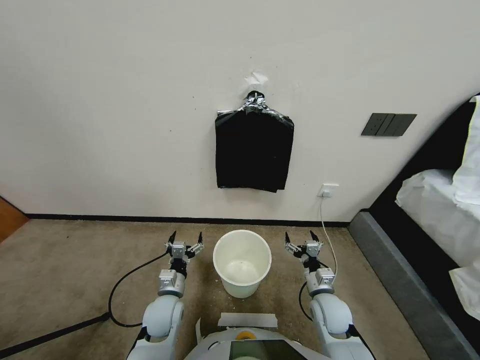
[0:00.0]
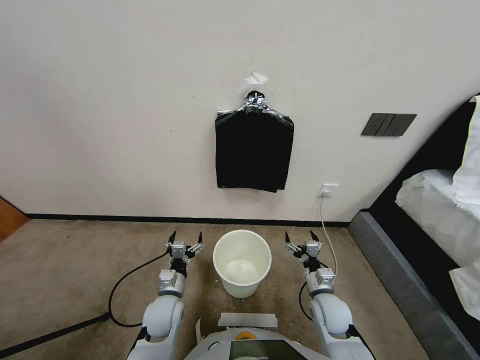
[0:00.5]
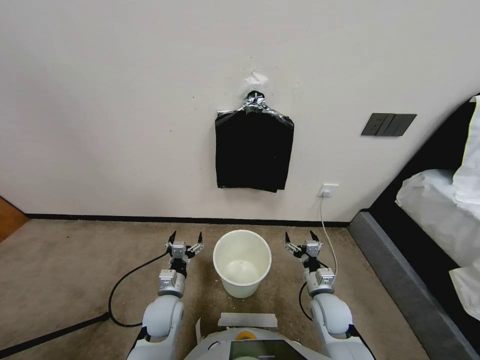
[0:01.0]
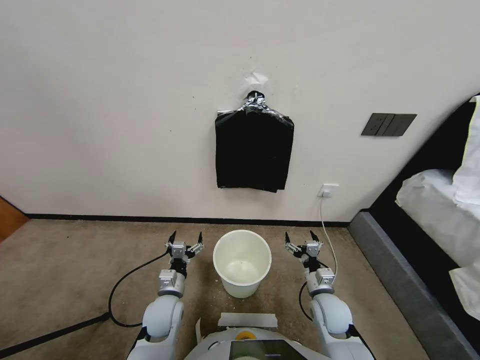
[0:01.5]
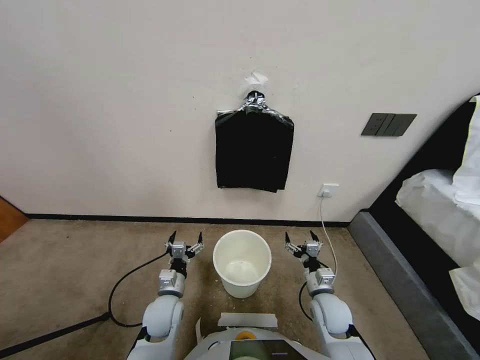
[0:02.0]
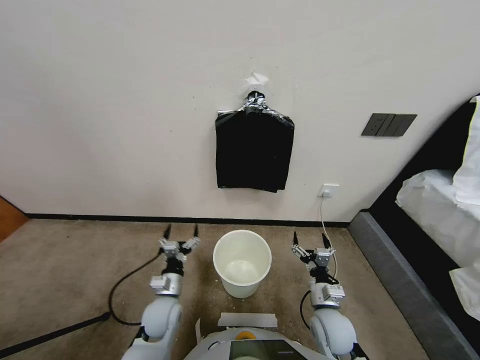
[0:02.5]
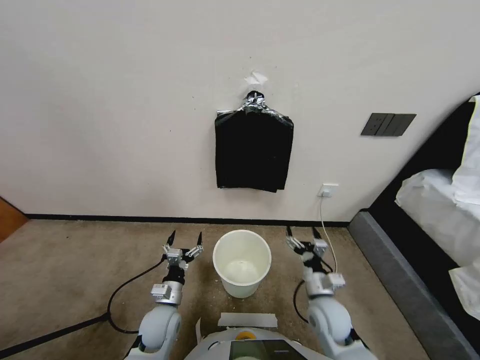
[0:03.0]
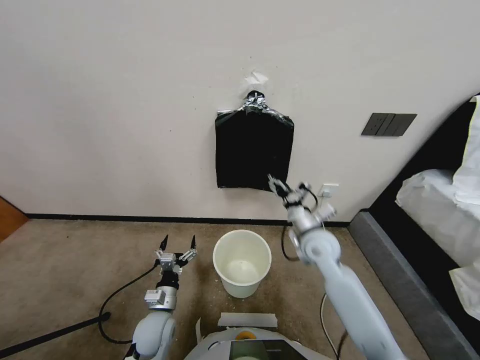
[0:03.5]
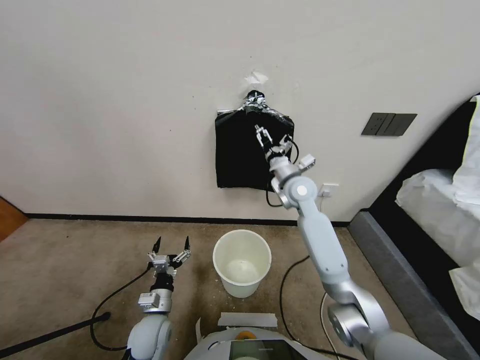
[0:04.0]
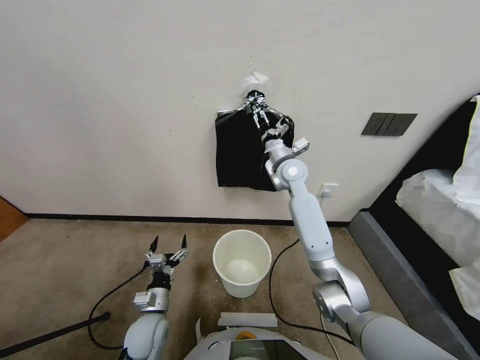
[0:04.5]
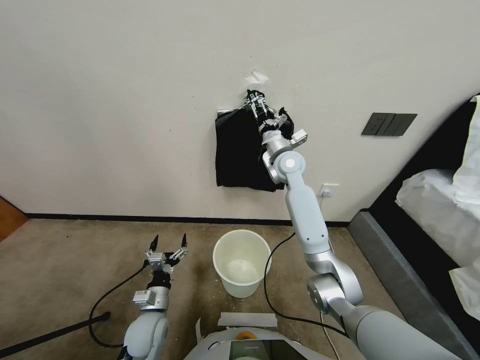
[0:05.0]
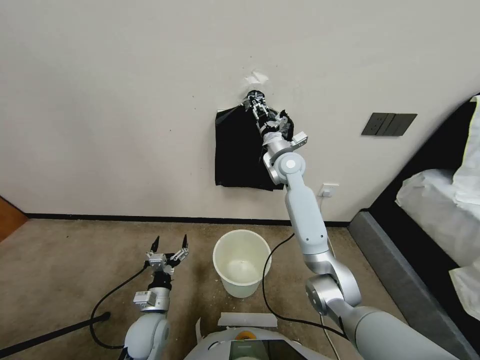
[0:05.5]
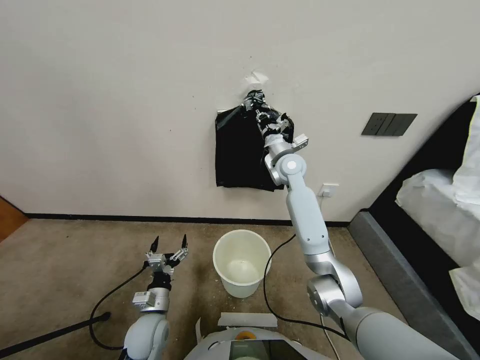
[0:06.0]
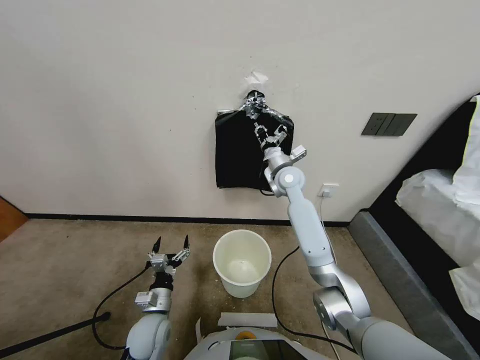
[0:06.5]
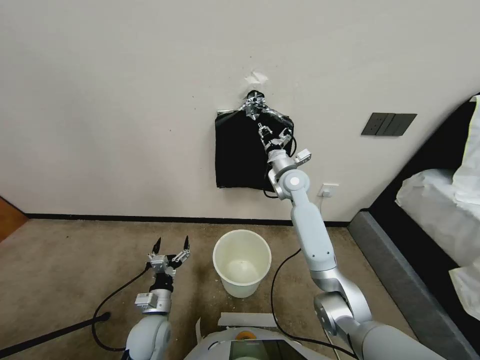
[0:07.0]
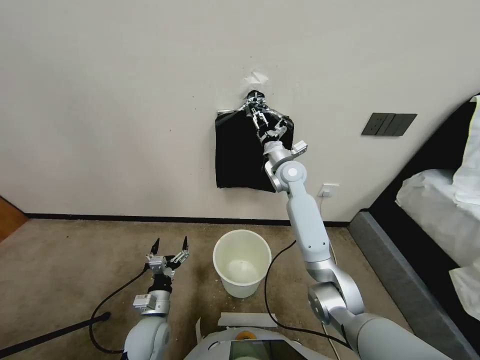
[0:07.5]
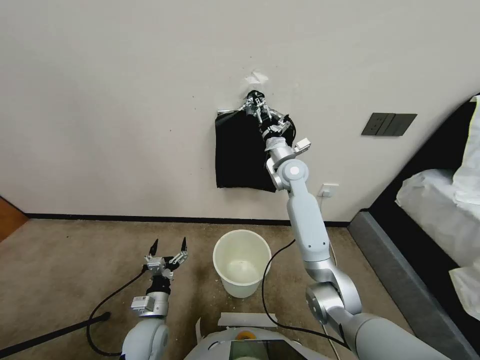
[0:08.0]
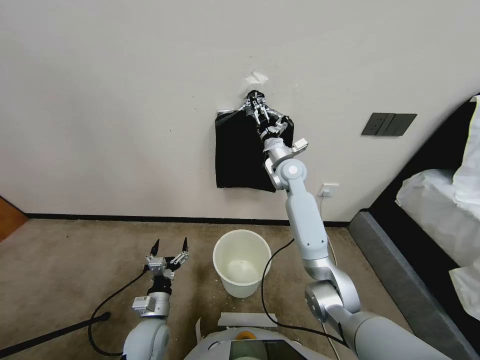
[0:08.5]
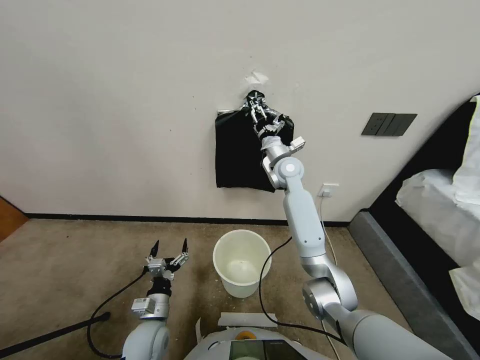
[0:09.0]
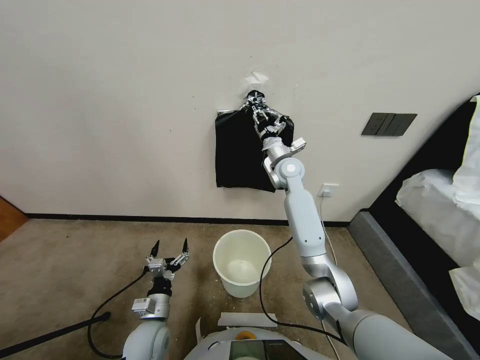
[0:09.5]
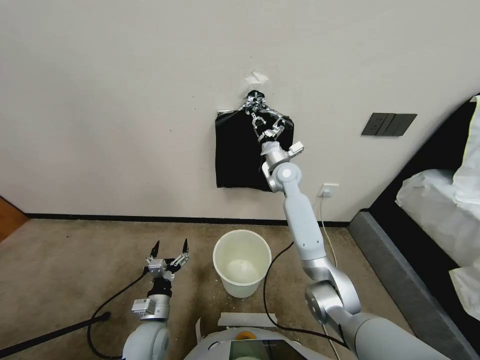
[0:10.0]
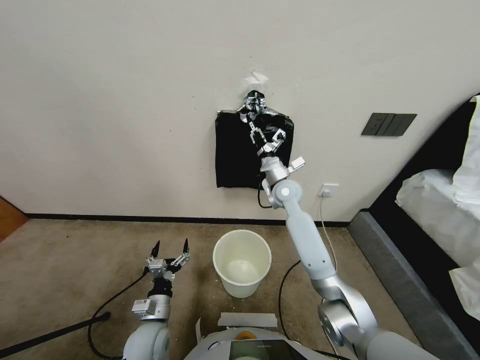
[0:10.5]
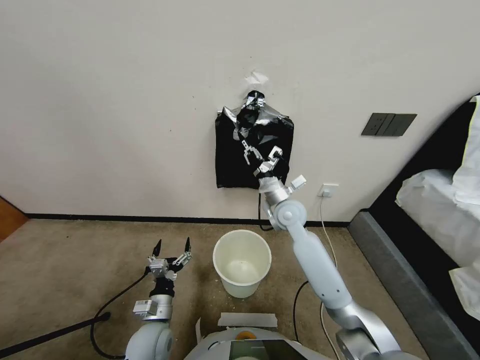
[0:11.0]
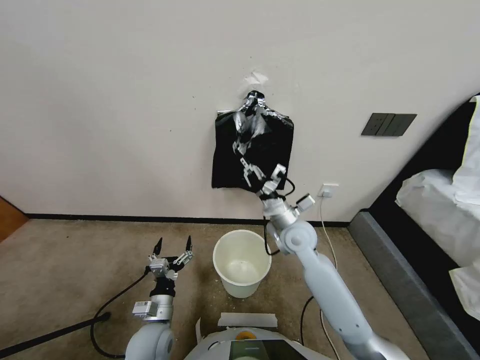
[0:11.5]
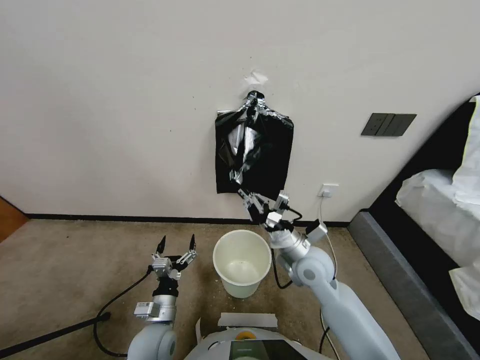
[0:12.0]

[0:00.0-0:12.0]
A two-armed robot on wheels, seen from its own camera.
Task of the whole recording: Place a trash bag onto the trash bin.
0:02.0 to 0:04.0: The left gripper shifts by about 5 cm. The right gripper moves forward and upward, approximately 35 cm.
0:04.0 to 0:06.0: The right gripper closes.
0:06.0 to 0:08.0: The right gripper opens up.
0:08.0 to 0:10.0: The right gripper closes up.
0:10.0 to 0:12.0: The right gripper travels backward by some 25 cm.

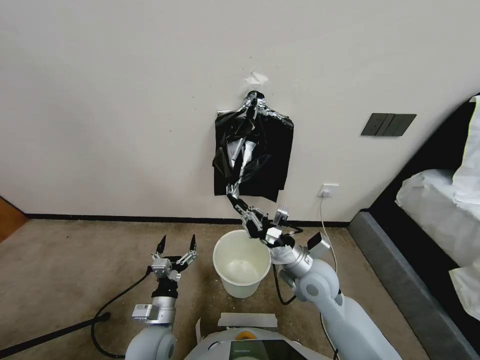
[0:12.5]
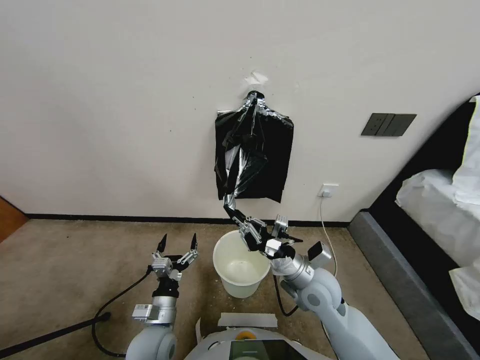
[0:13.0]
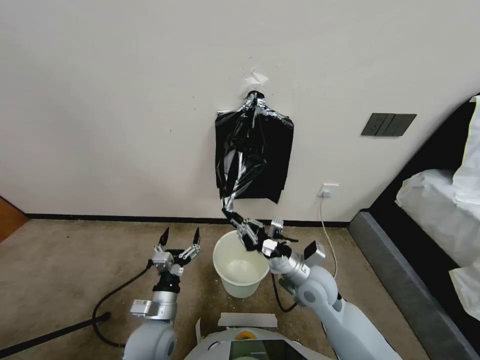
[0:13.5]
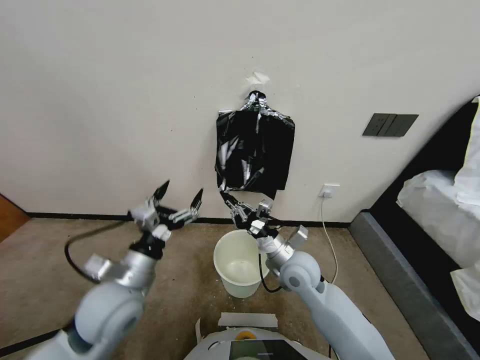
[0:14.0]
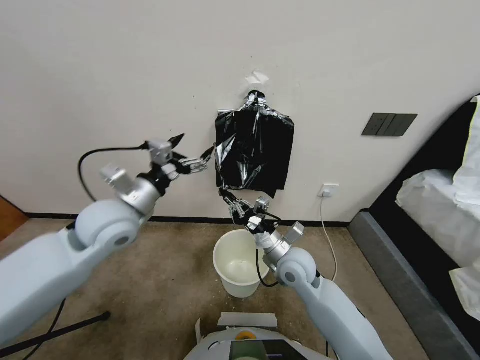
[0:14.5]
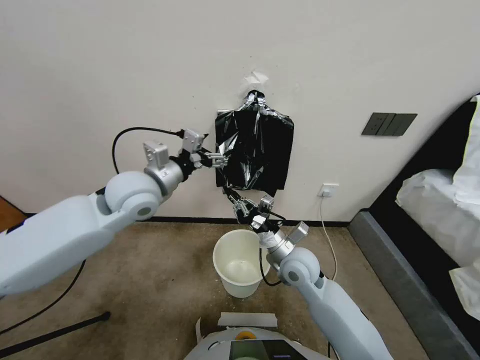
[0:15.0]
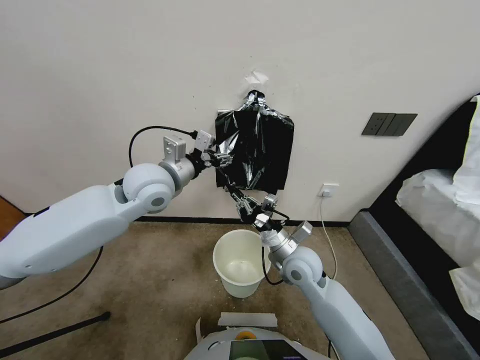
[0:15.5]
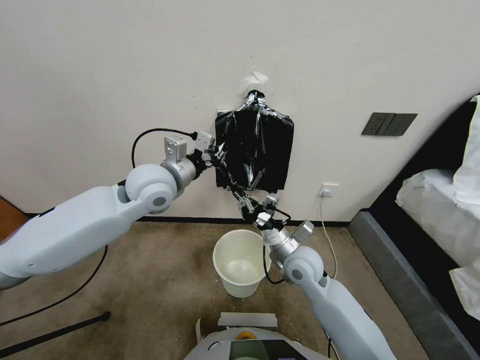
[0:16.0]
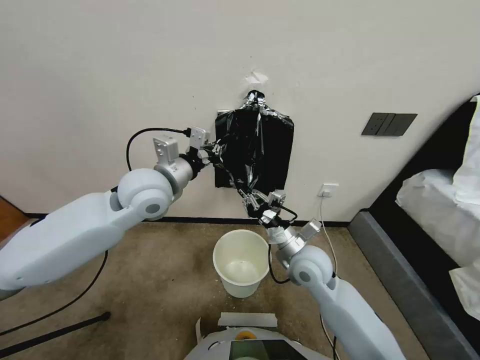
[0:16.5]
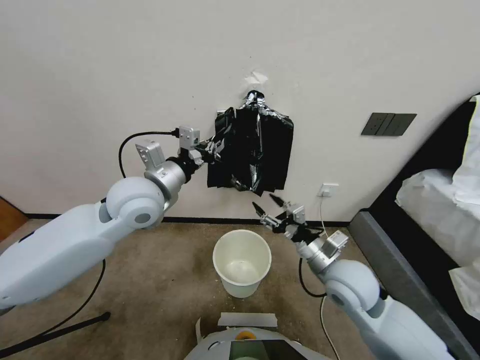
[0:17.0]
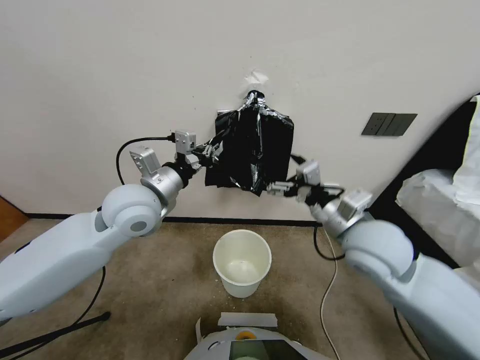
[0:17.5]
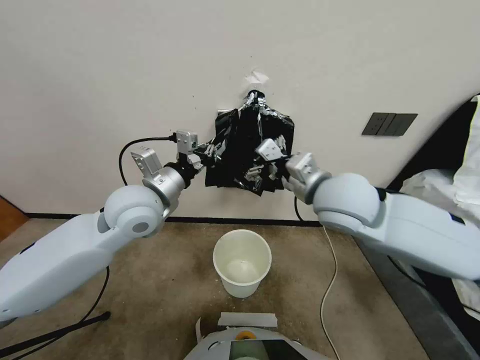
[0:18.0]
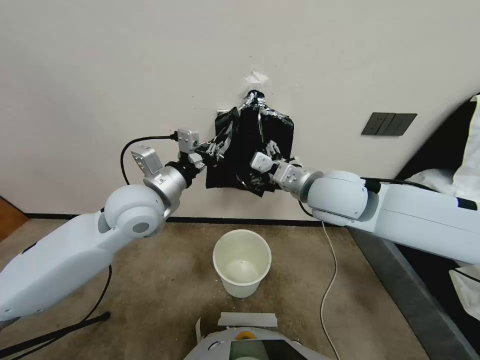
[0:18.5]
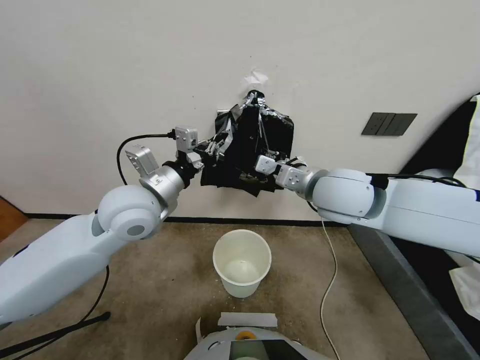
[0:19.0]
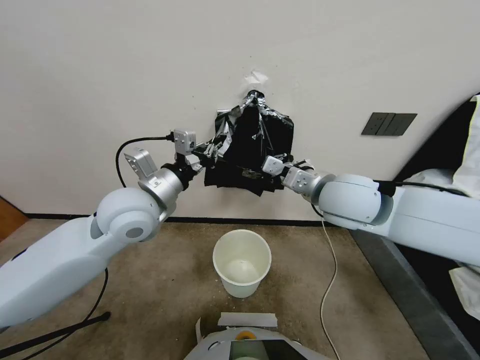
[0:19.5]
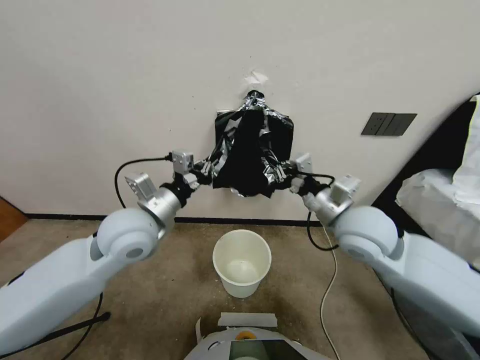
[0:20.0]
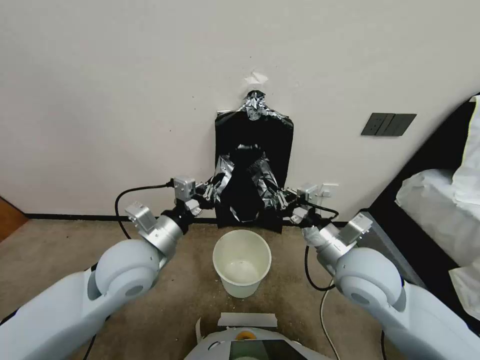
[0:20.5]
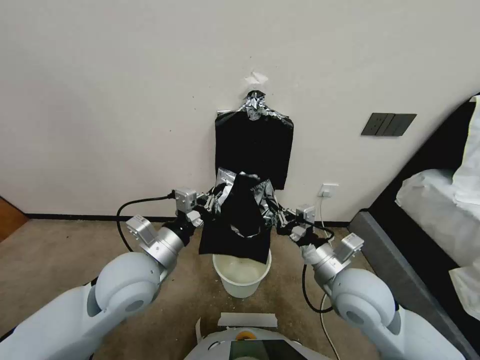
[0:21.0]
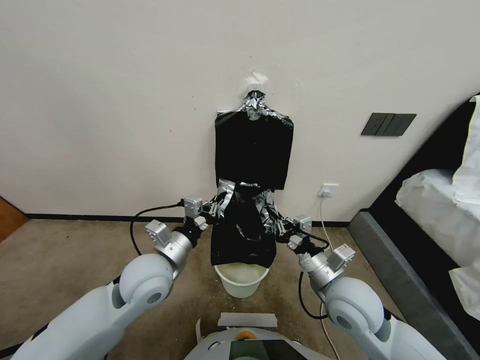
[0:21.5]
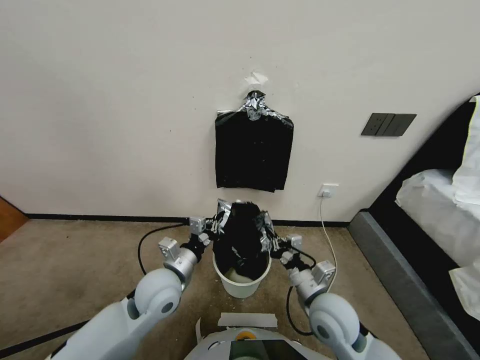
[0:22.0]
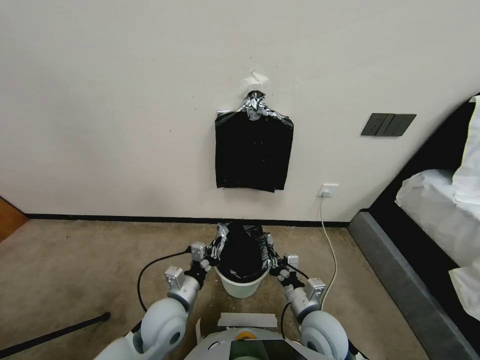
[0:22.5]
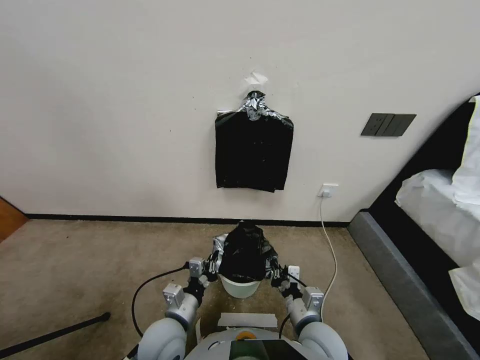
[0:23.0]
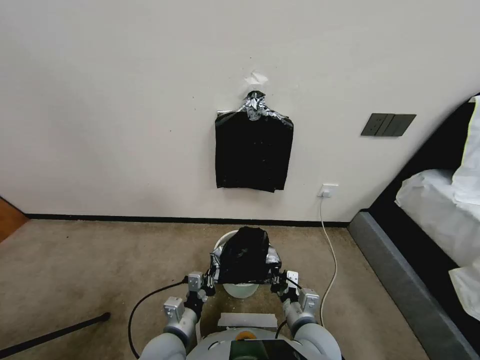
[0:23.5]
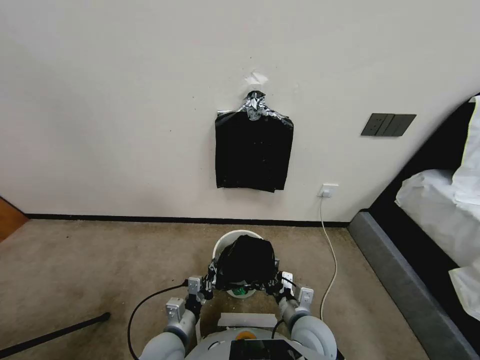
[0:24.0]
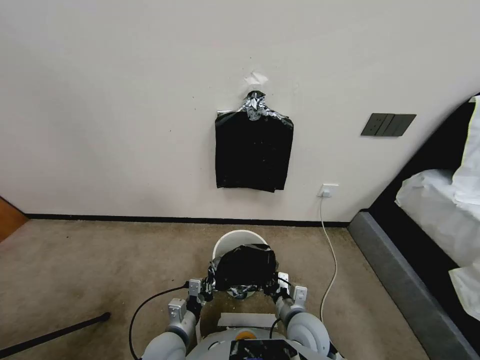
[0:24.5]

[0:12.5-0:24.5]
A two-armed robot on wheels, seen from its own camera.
Task of the whole recording: Place a trash bag onto the trash bin.
0:12.5 to 0:14.5: The right gripper changes place by about 5 cm. Meanwhile the left gripper shifts approximately 35 cm upward and forward.
0:14.5 to 0:16.5: The left gripper changes place by about 5 cm, and closes its fingers.
0:16.5 to 0:18.5: The right gripper is displaced upward by approximately 20 cm, and opens its fingers.
0:18.5 to 0:20.5: The right gripper moves downward, backward and to the right, some 15 cm, and closes. The left gripper travels backward and downward by some 10 cm.
0:20.5 to 0:22.5: Both grippers travel together downward, roughly 20 cm.
0:22.5 to 0:24.5: The left gripper heads downward, covering approximately 10 cm.

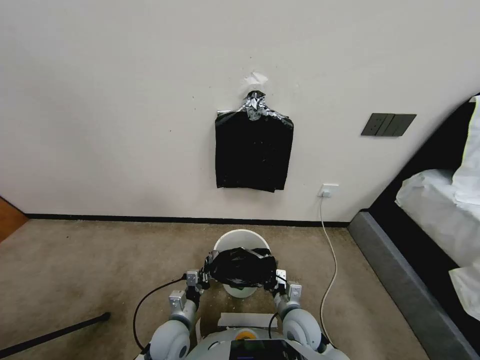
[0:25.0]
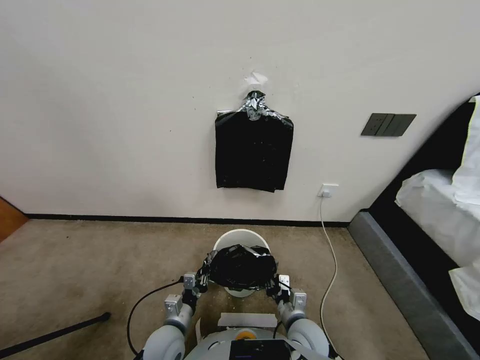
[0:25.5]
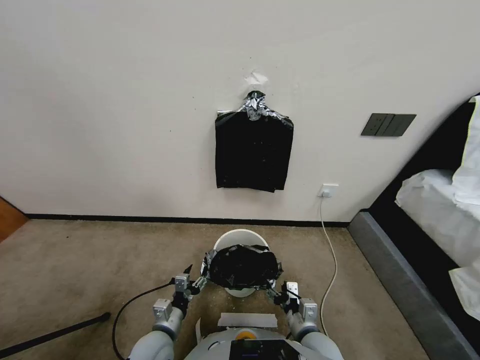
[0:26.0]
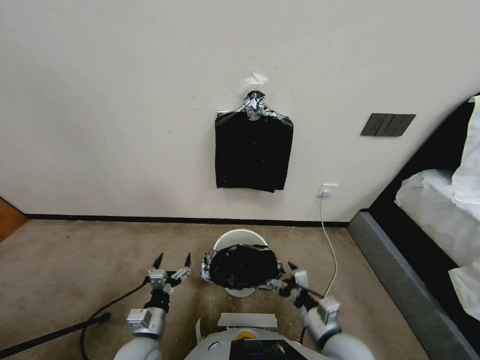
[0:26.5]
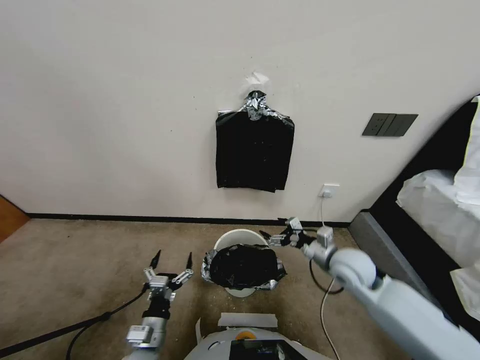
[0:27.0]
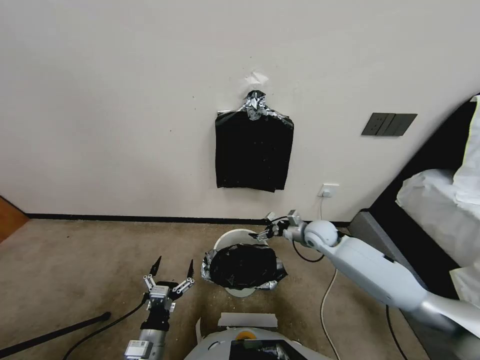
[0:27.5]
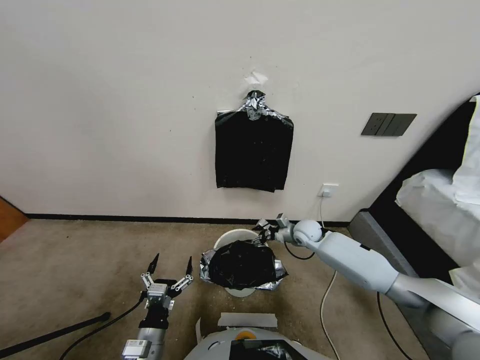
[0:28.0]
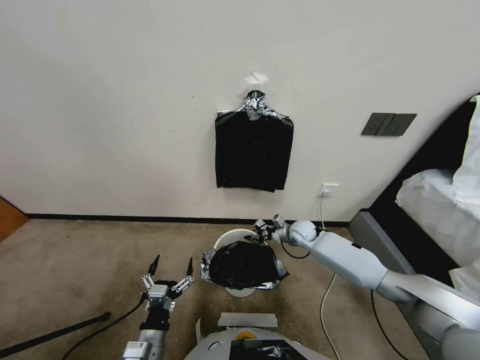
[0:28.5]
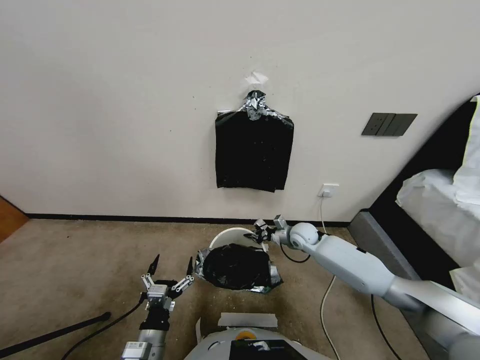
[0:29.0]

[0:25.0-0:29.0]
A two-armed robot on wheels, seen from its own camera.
Task of the whole recording: Place a trash bag onto the trash bin.
0:25.0 to 0:27.0: The left gripper heads backward and upward, covering approximately 10 cm, and opens; the right gripper shifts some 25 cm forward, upward and to the right, and opens up.
0:27.0 to 0:29.0: The right gripper goes about 10 cm forward and downward, and closes its fingers.
